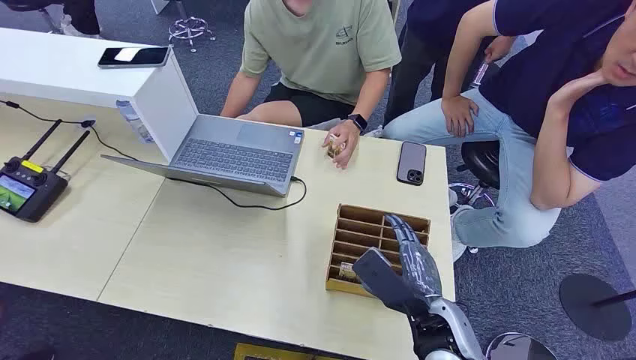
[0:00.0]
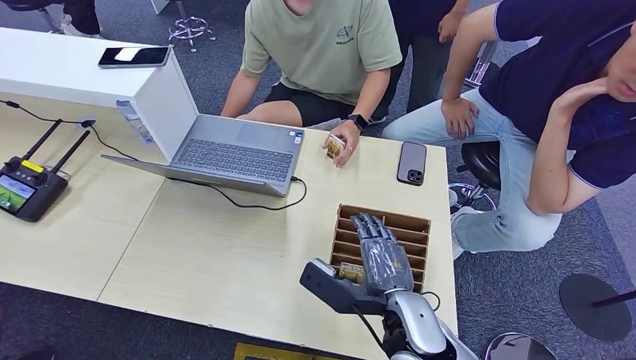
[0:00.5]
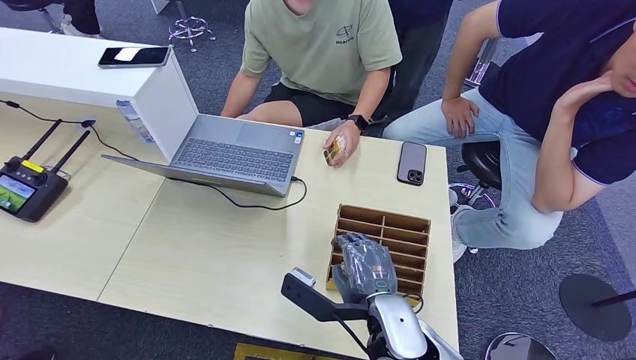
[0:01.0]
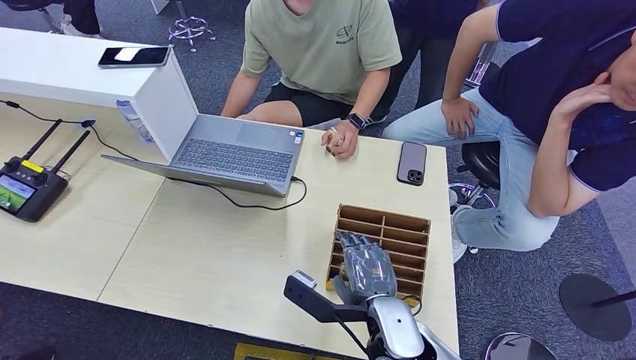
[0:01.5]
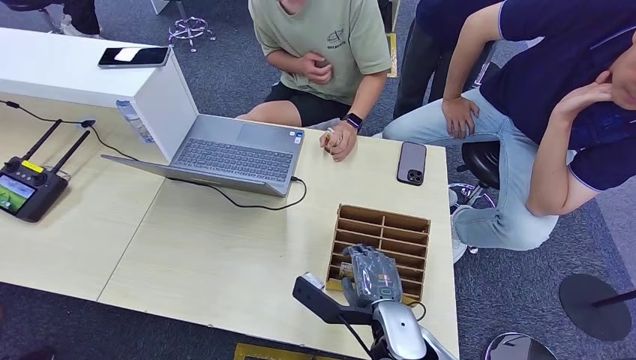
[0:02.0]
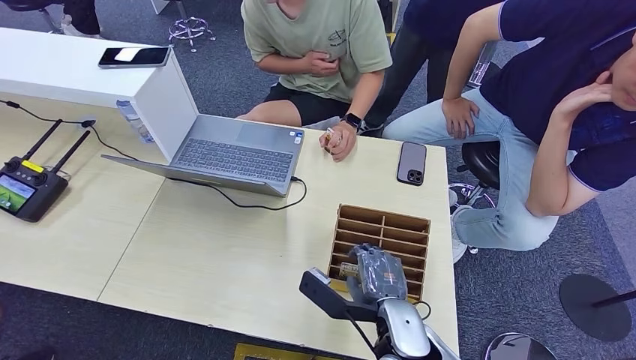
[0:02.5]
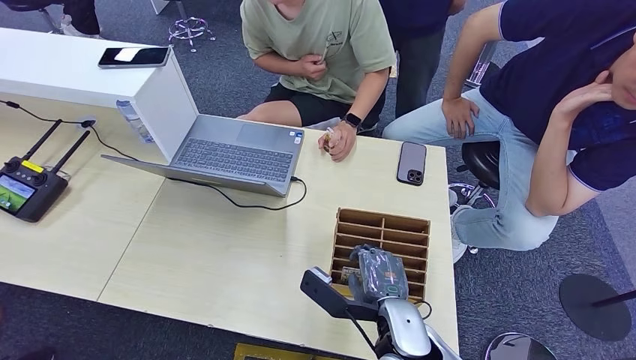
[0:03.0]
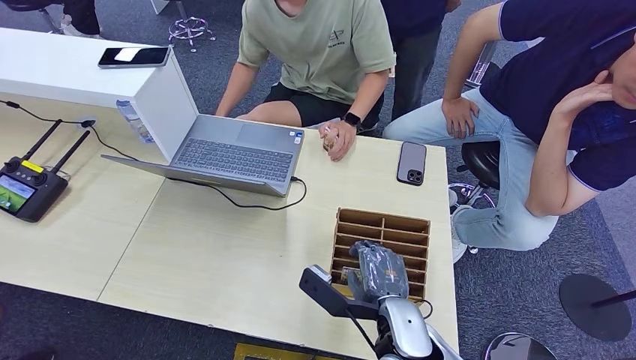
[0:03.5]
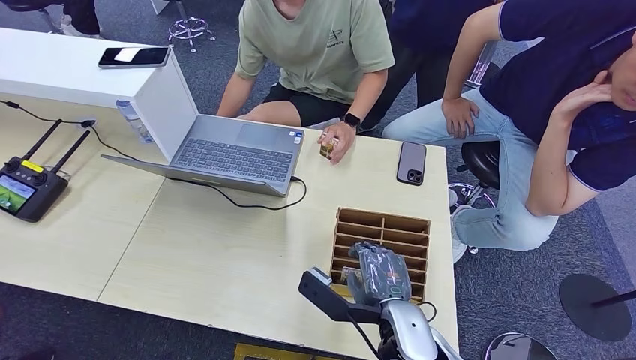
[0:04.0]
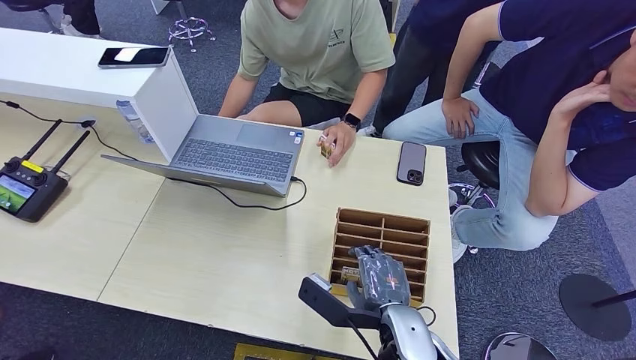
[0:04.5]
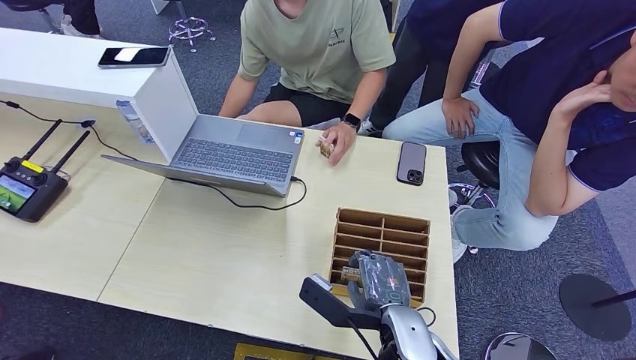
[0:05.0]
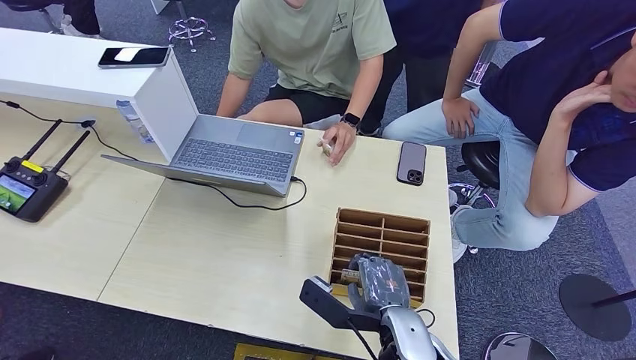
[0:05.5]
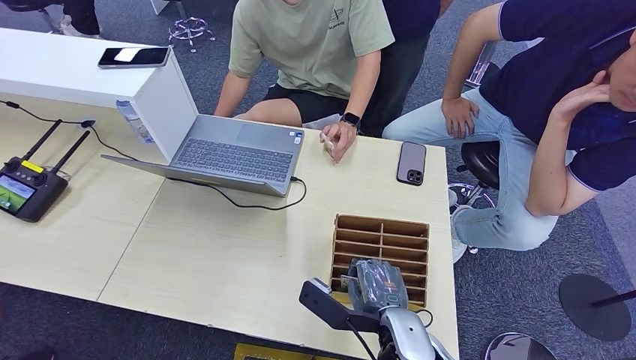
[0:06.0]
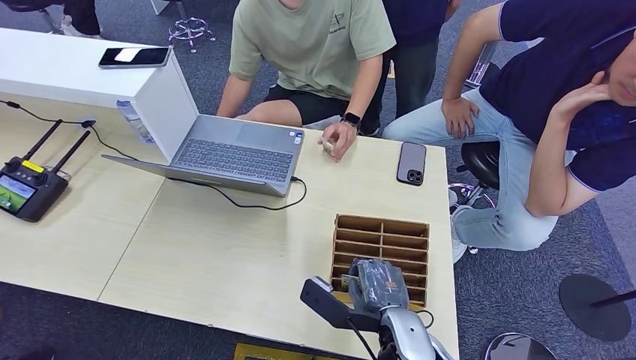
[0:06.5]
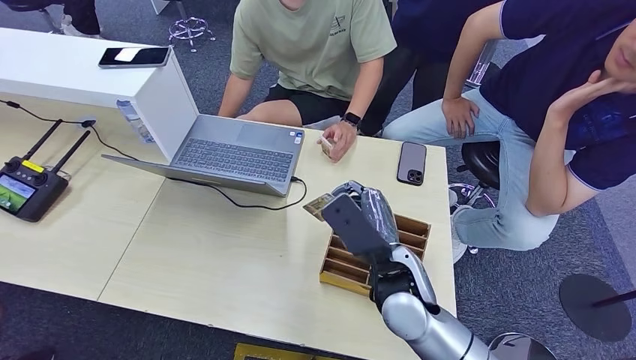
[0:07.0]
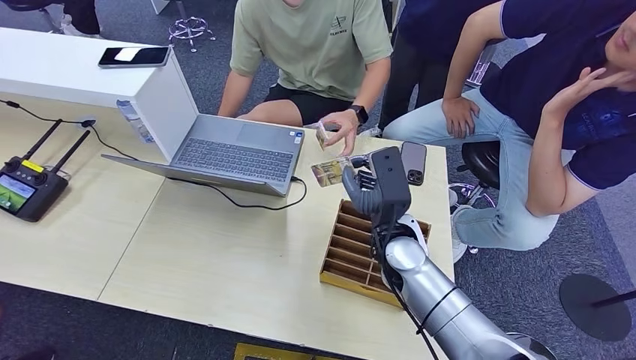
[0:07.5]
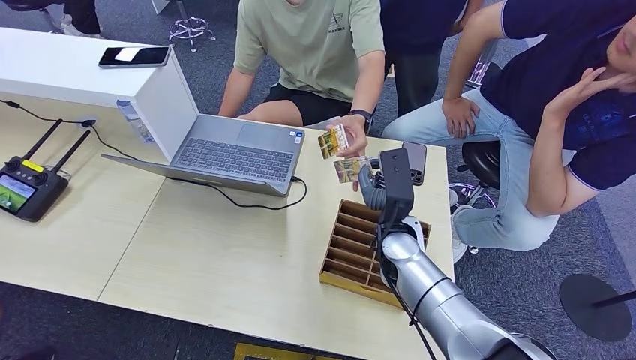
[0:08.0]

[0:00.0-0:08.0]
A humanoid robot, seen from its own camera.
Step, 0:00.0 to 0:07.0: Pick up the room card from the card holder.
Step, 0:07.5 to 0:08.0: Hand the room card to the target.
0:02.0 to 0:06.0: The hands stay close to where they were, moving slightly.
0:06.0 to 0:08.0: The right hand shifts about 15 cm forward.

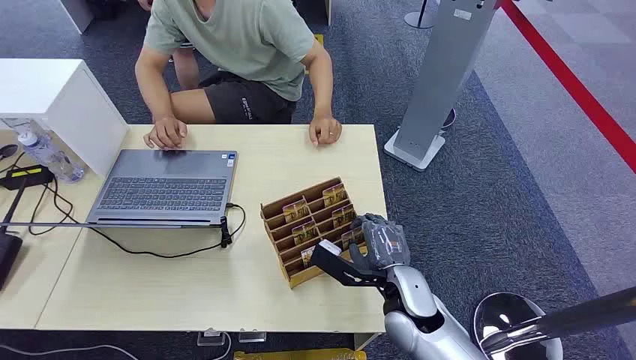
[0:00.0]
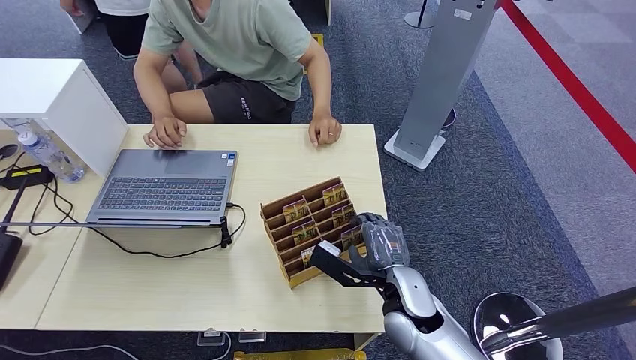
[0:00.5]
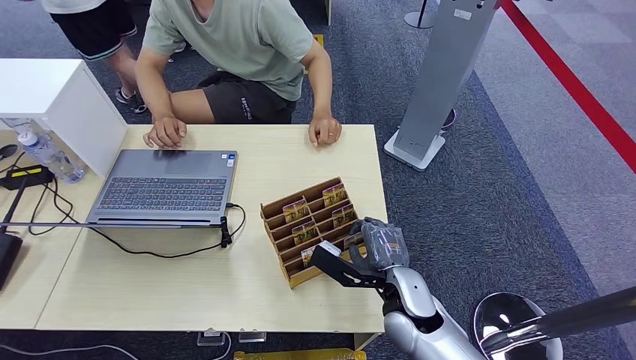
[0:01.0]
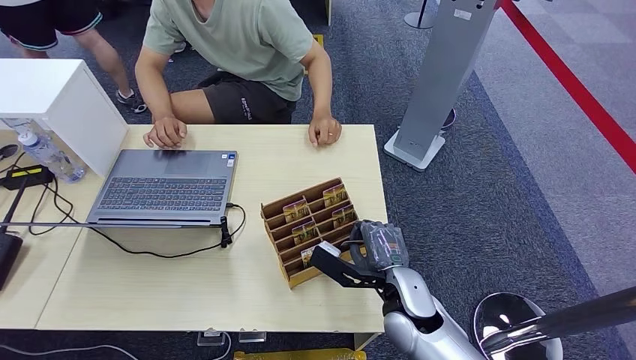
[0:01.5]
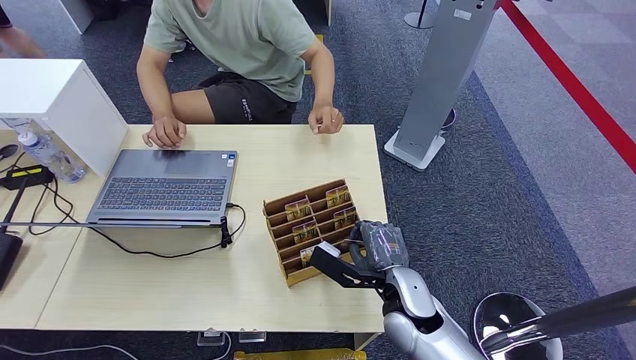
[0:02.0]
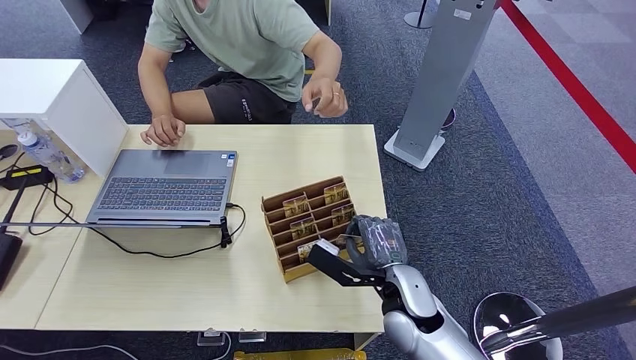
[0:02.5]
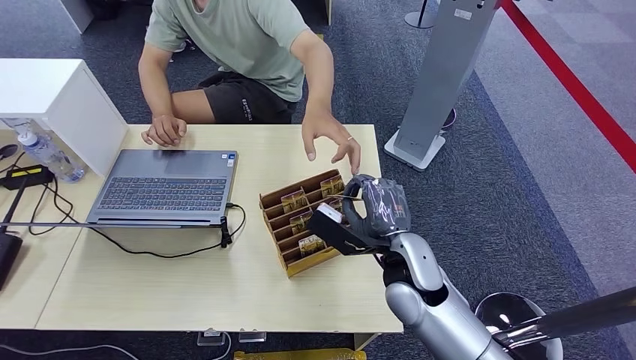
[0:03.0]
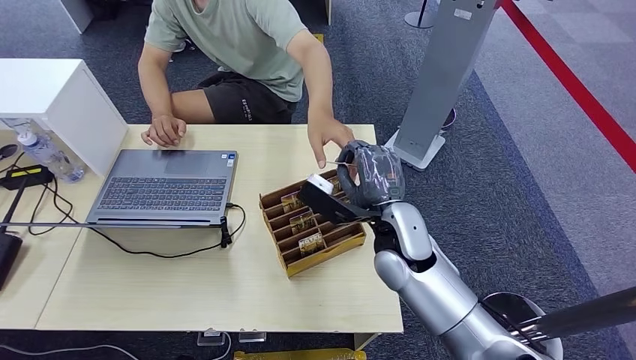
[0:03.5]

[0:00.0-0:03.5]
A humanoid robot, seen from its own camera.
Step, 0:00.0 to 0:03.0: Pick up the room card from the card holder.
0:02.0 to 0:03.5: The right hand shifts roughly 10 cm upward and forward.
